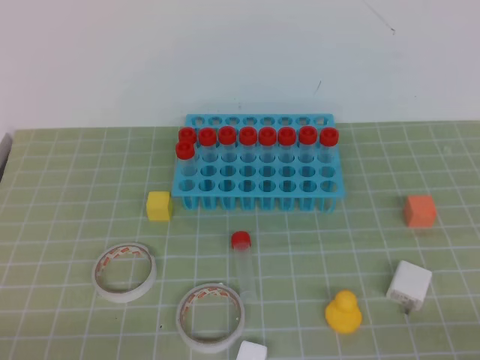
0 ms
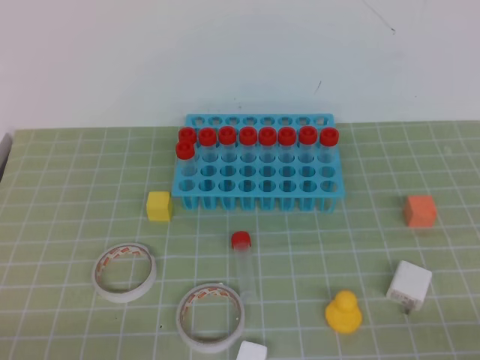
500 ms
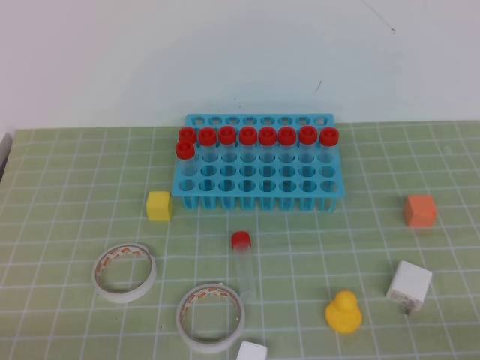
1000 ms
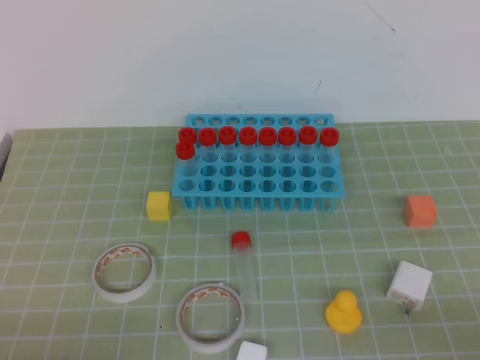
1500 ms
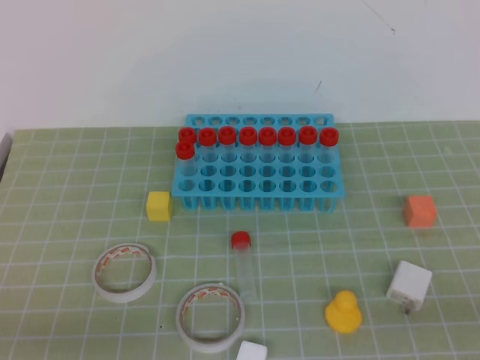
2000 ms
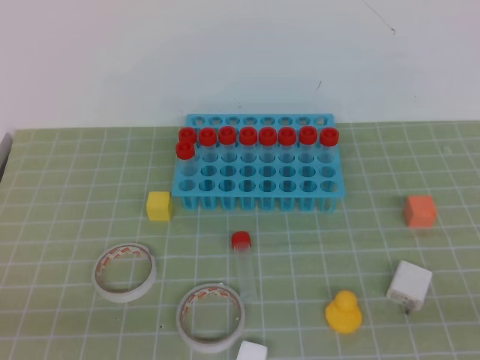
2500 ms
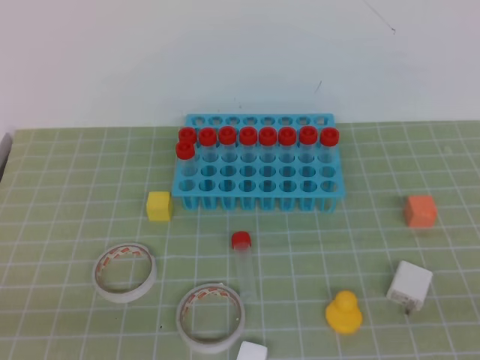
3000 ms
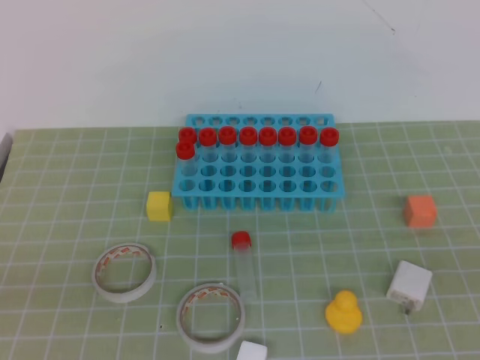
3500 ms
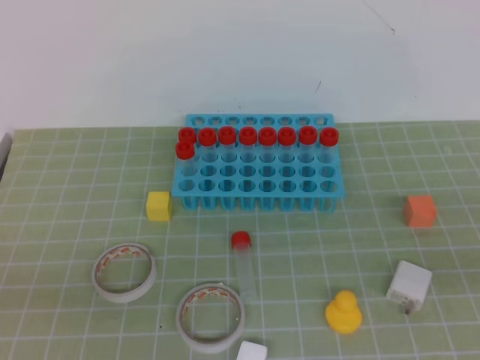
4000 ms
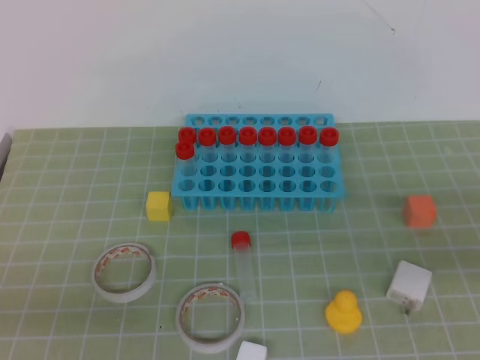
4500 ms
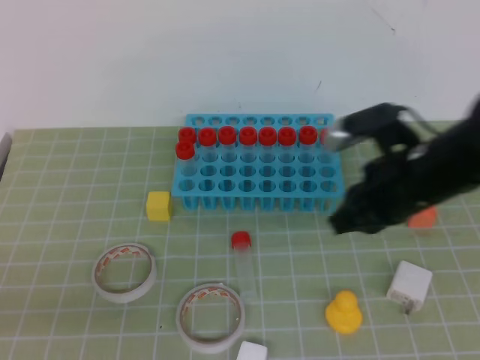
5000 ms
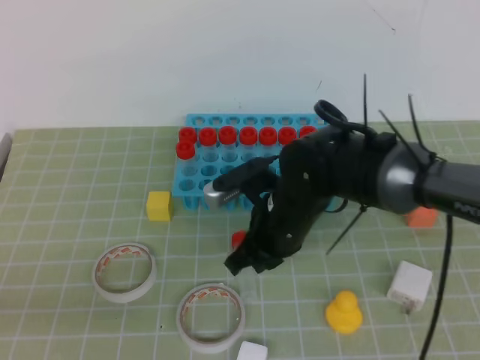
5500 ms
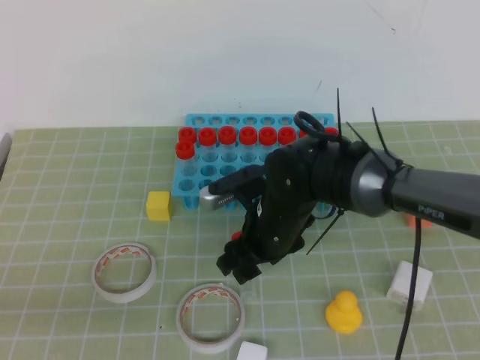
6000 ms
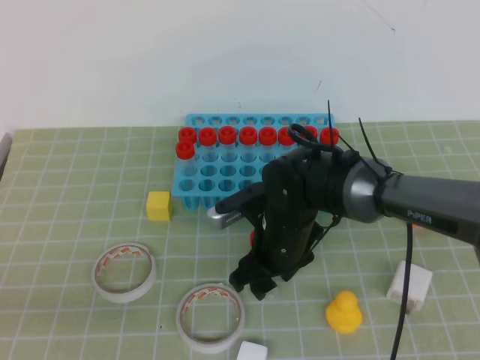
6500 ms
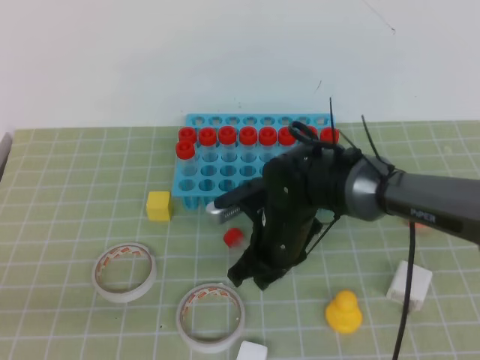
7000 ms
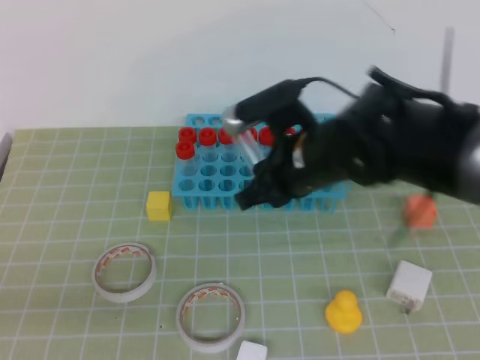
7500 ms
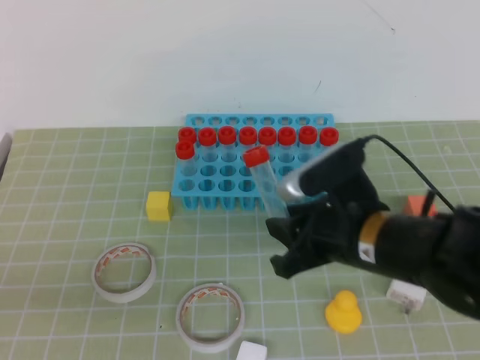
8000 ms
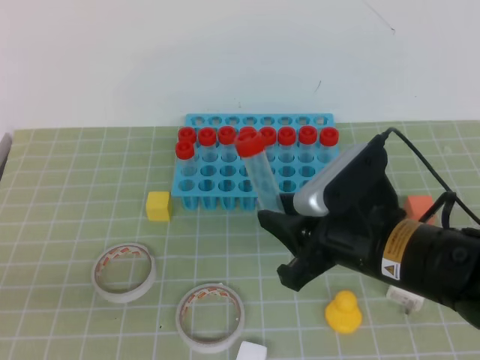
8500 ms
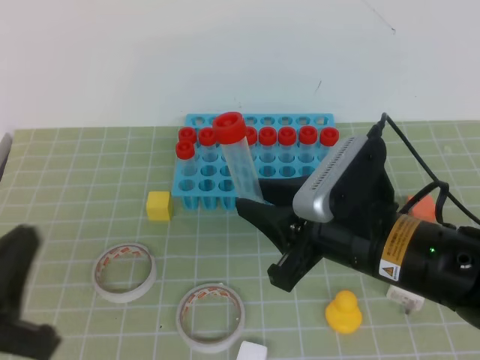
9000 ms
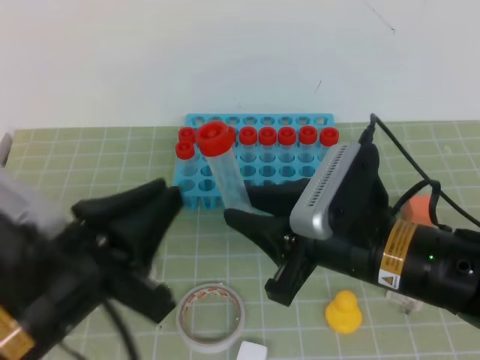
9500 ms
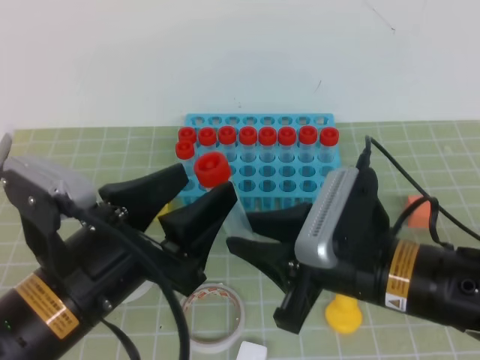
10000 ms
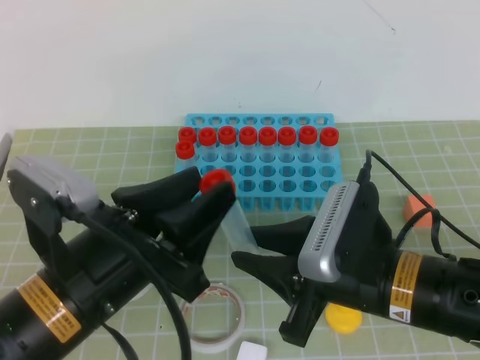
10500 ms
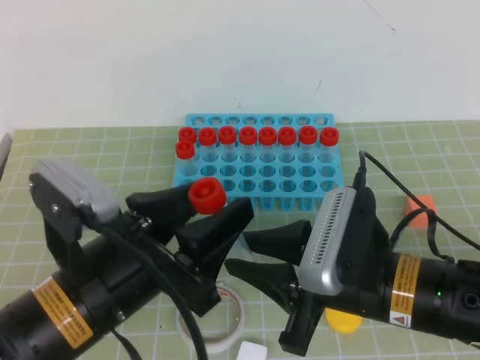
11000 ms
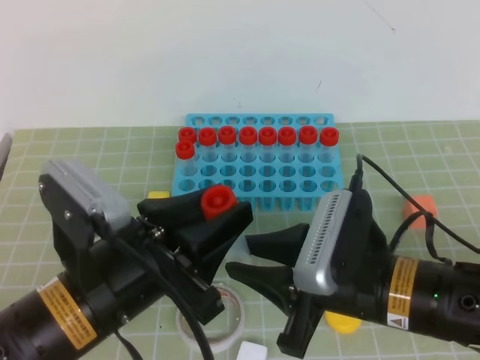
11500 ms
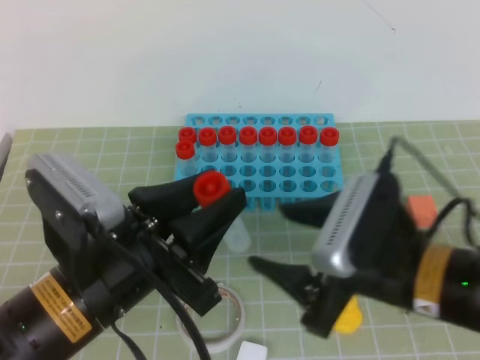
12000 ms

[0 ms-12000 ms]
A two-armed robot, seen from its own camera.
4000 ms to 6000 ms: The right gripper travels to the left and forward by some 35 cm, and opens its fingers.
6000 ms to 8000 ms: The right gripper shifts about 15 cm backward, to the right and upward, and closes its fingers.
8000 ms to 10000 ms: The left gripper moves to the right and forward, some 15 cm, and opens. The right gripper is displaced backward by roughly 5 cm.
10000 ms to 12000 ms: The left gripper closes, while the right gripper opens.

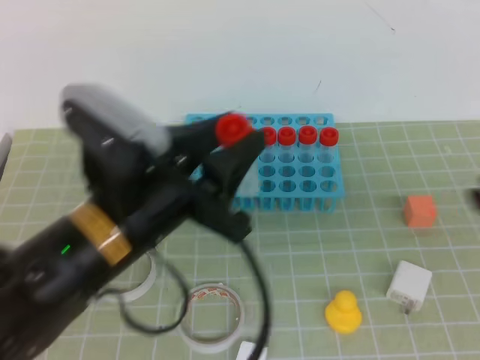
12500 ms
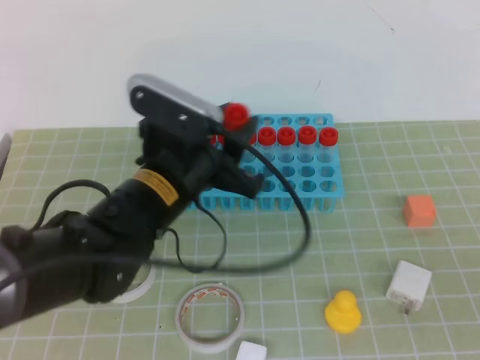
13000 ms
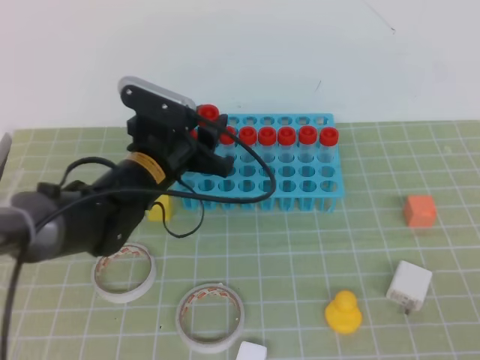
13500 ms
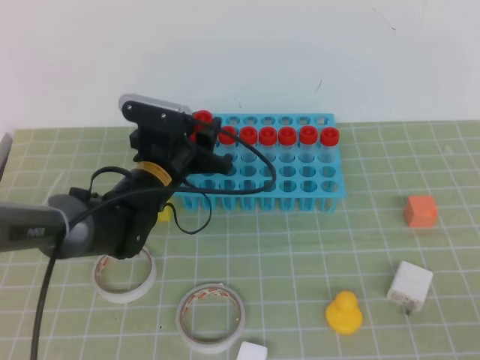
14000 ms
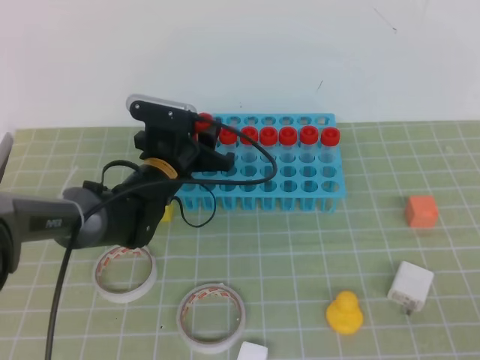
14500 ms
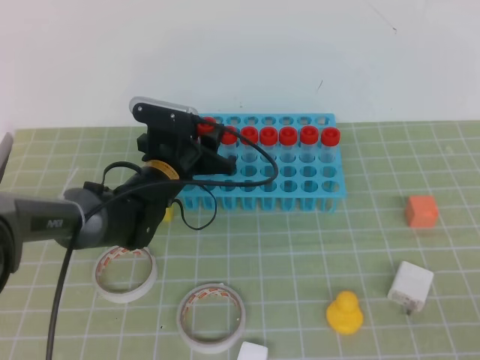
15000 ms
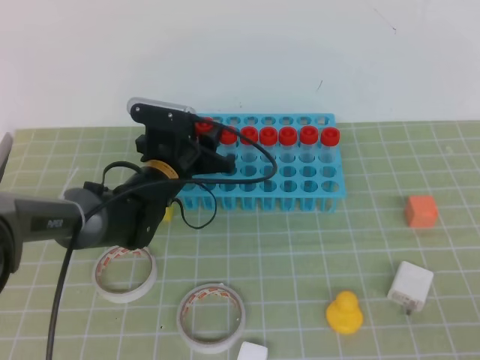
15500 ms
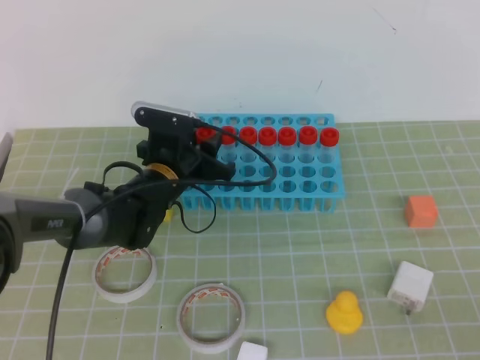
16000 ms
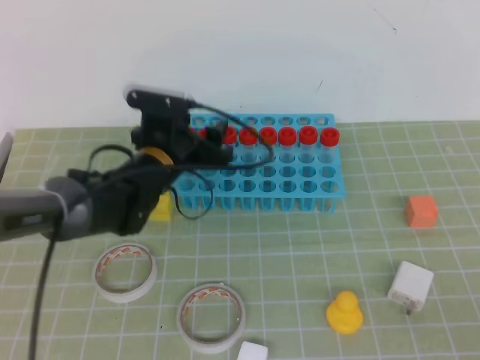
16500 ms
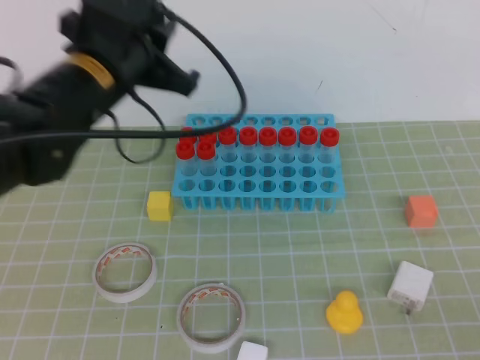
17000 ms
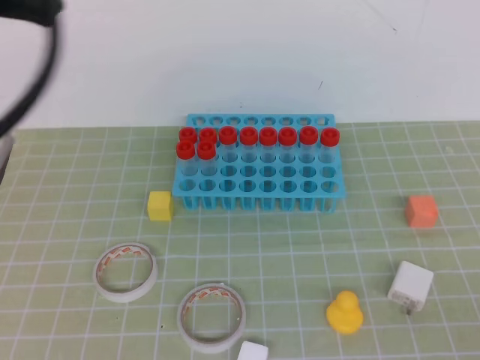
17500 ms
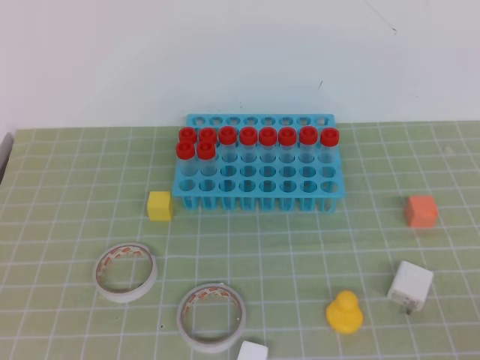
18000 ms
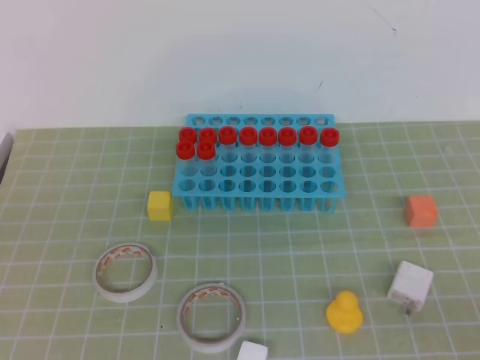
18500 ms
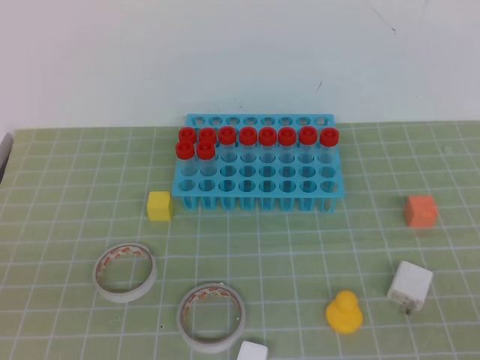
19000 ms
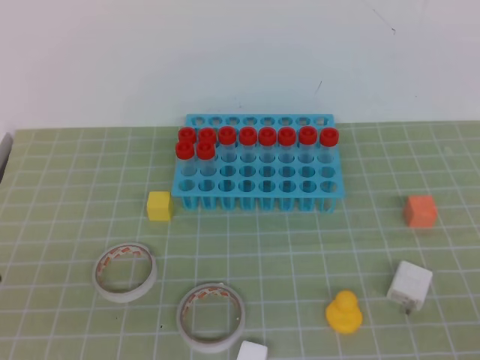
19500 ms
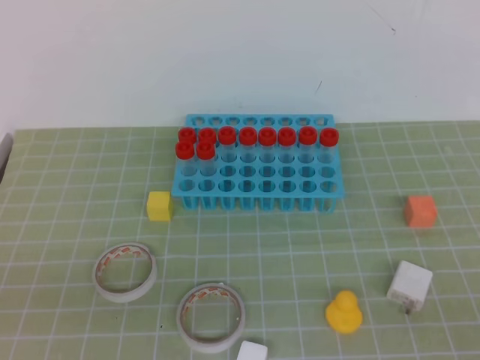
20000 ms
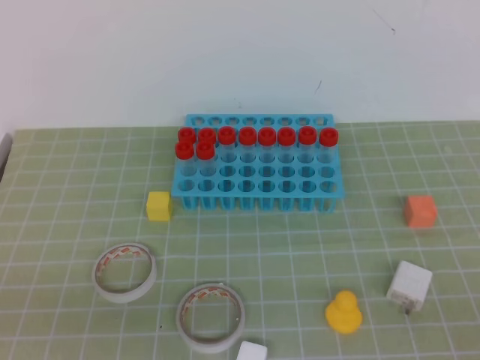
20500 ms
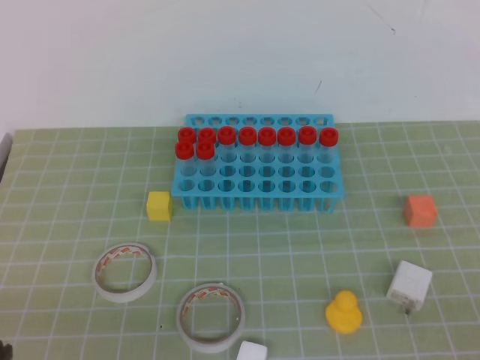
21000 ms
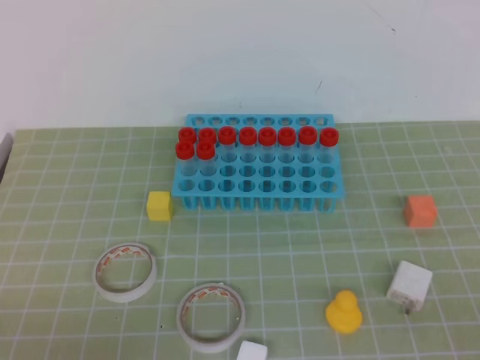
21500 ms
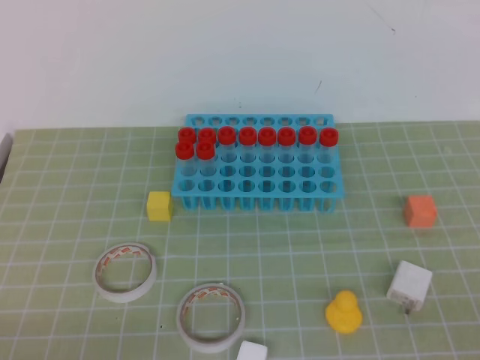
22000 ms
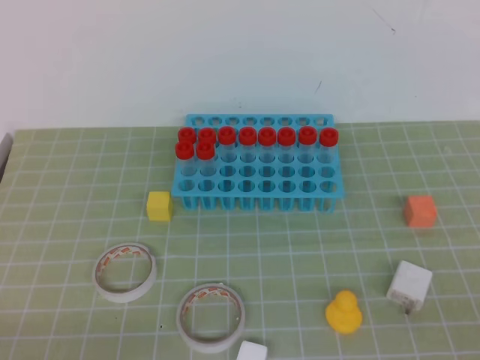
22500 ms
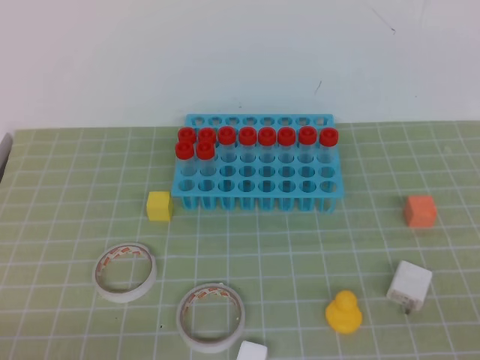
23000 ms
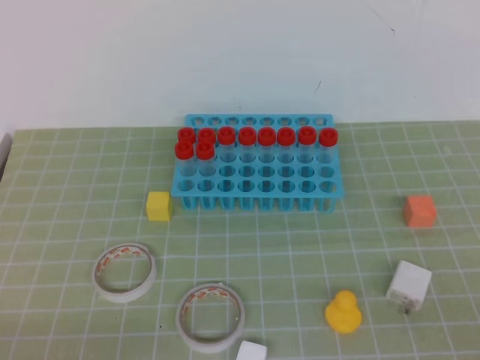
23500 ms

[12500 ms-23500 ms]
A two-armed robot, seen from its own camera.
12500 ms to 14500 ms: The left gripper heads forward and downward, covering some 25 cm; the right gripper shifts some 15 cm backward and to the right, and closes.
14500 ms to 16000 ms: The grippers move only a little.
16000 ms to 18000 ms: The left gripper is displaced backward and upward by roughly 40 cm, and closes.

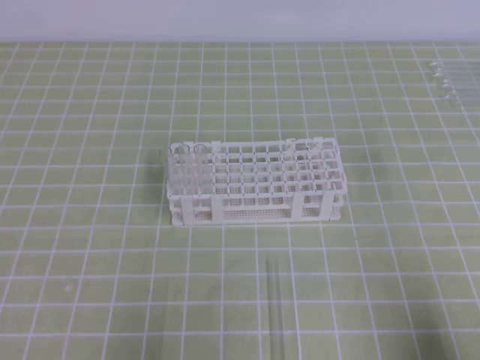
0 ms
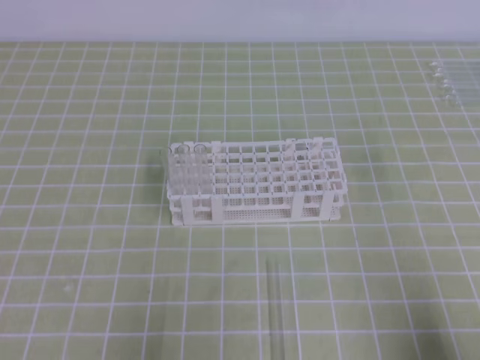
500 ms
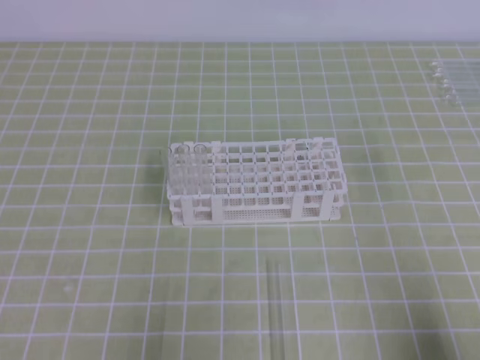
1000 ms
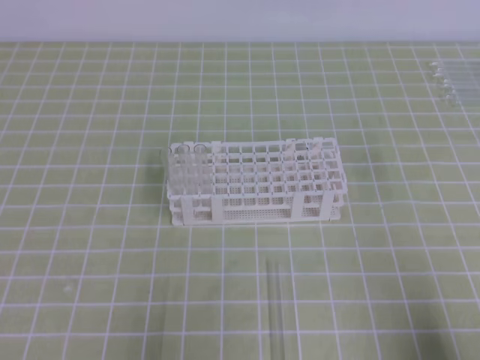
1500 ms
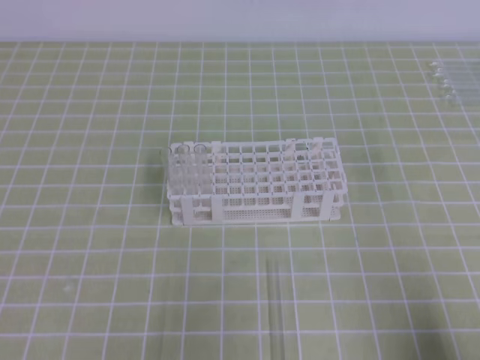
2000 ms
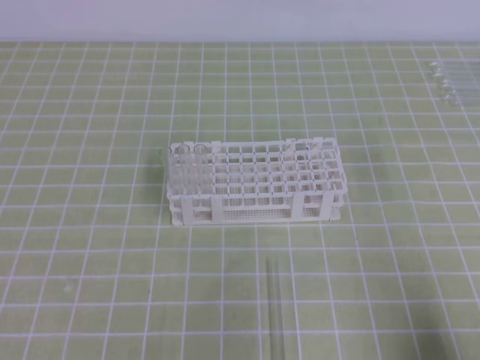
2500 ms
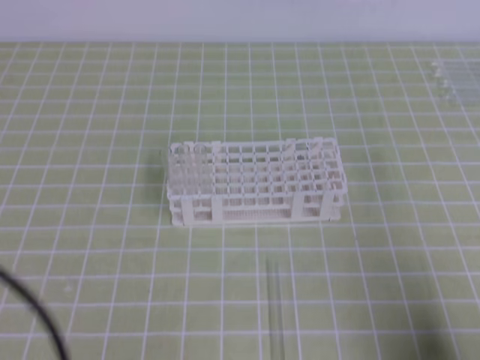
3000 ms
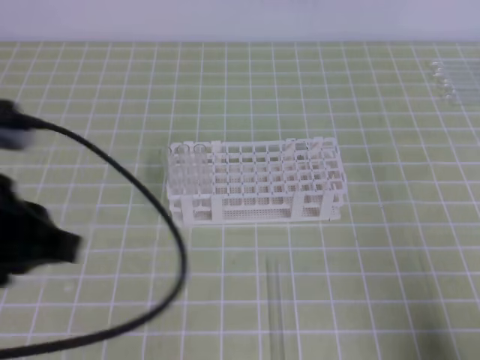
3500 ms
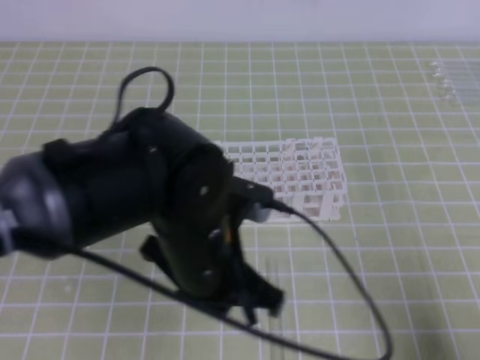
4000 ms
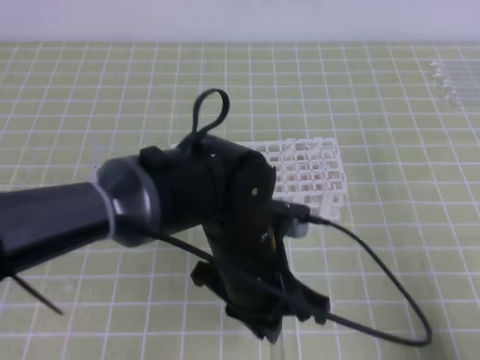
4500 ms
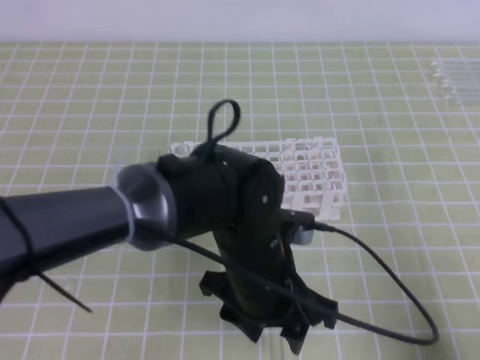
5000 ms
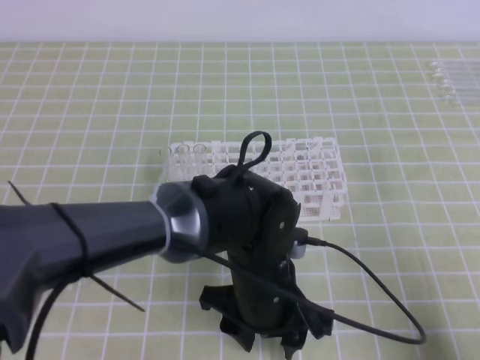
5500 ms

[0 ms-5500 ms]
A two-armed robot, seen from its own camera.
2000 ms to 3500 ms: The left gripper heads upward, forward and to the right, covering roughly 20 cm.
3500 ms to 5500 ms: The left gripper heads to the right and downward, covering some 25 cm, and opens up.
